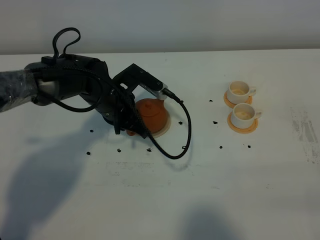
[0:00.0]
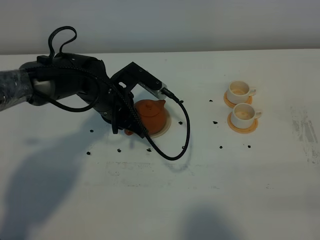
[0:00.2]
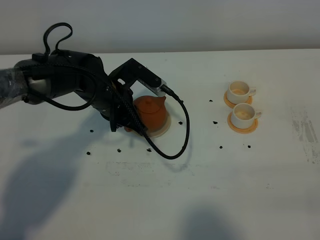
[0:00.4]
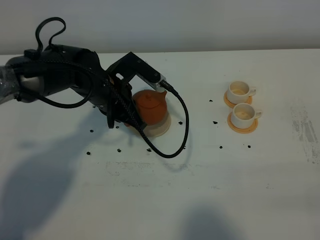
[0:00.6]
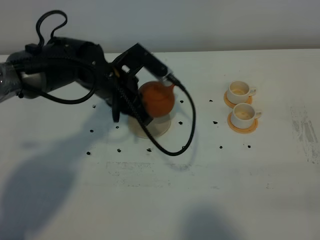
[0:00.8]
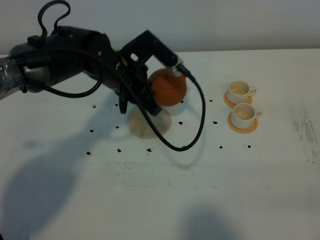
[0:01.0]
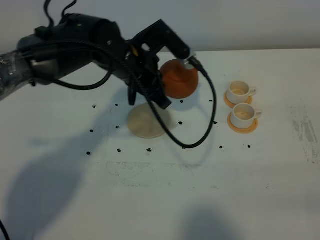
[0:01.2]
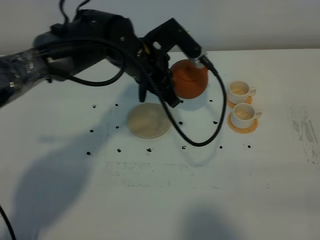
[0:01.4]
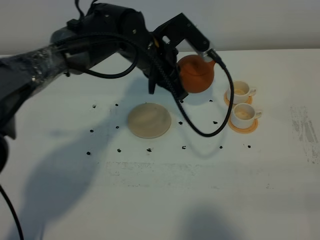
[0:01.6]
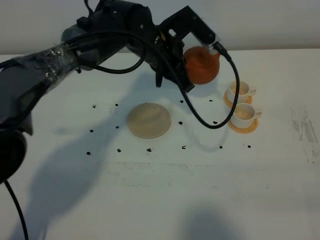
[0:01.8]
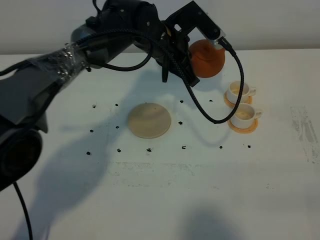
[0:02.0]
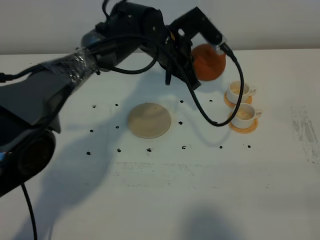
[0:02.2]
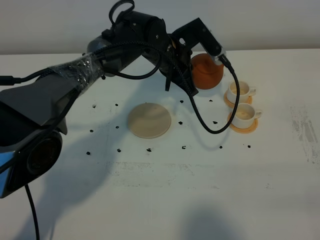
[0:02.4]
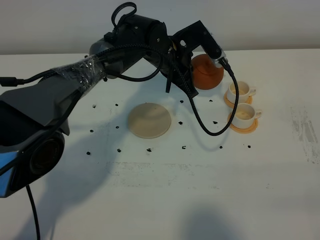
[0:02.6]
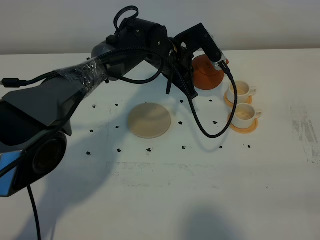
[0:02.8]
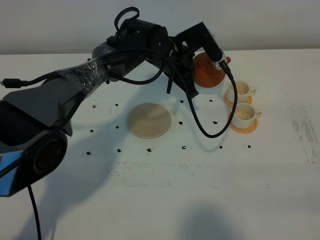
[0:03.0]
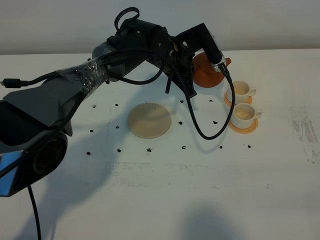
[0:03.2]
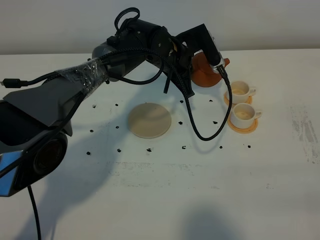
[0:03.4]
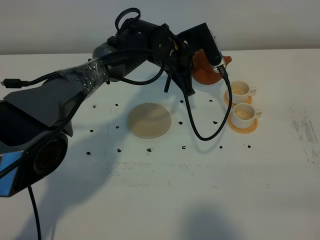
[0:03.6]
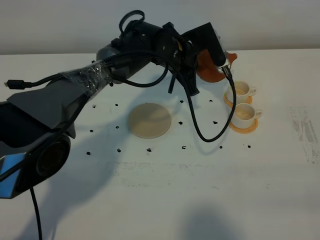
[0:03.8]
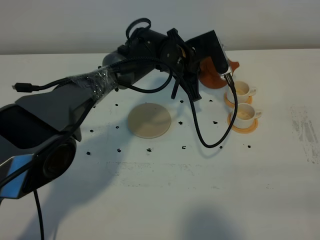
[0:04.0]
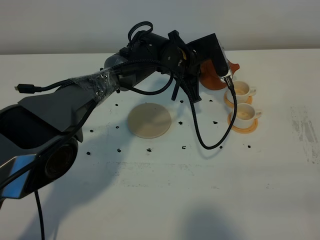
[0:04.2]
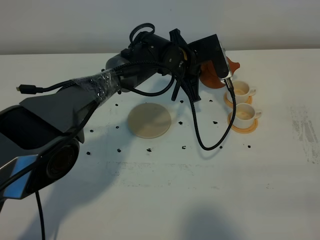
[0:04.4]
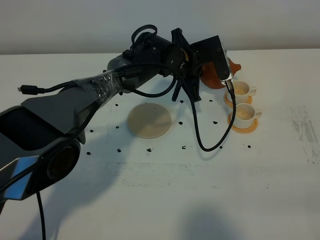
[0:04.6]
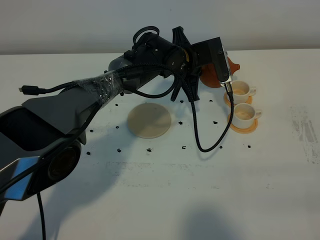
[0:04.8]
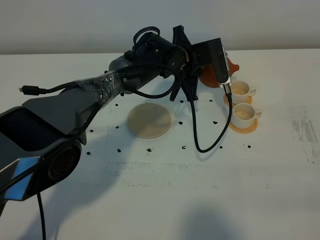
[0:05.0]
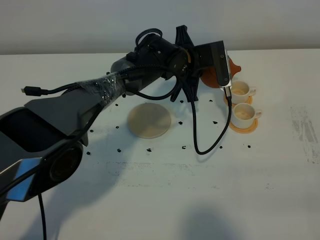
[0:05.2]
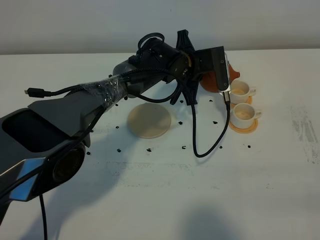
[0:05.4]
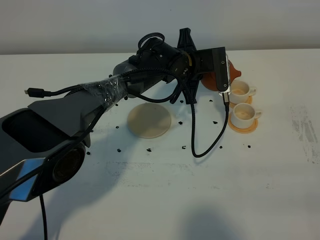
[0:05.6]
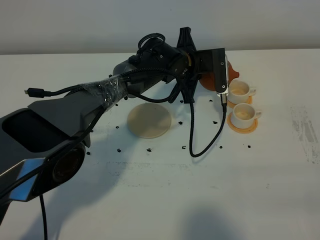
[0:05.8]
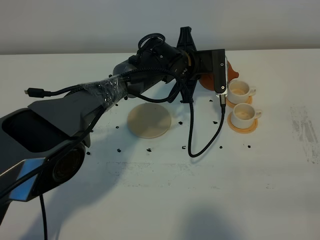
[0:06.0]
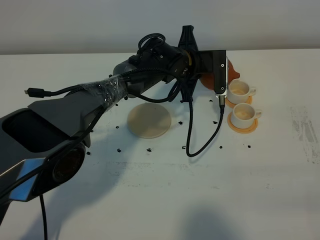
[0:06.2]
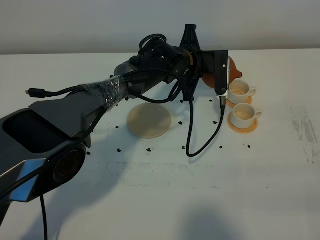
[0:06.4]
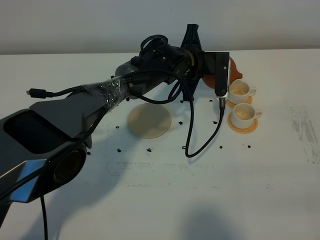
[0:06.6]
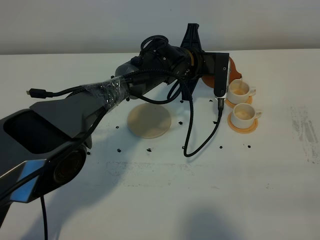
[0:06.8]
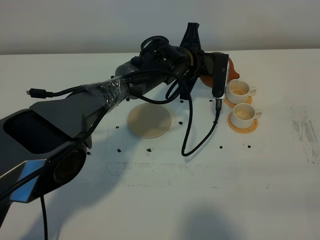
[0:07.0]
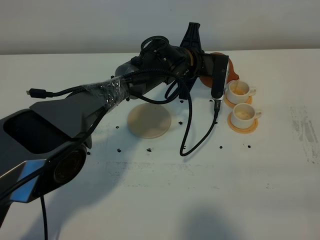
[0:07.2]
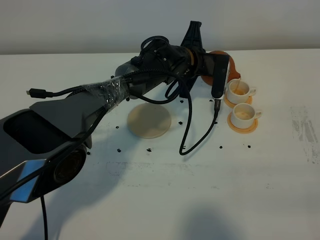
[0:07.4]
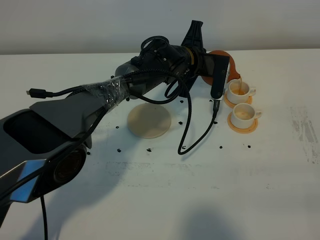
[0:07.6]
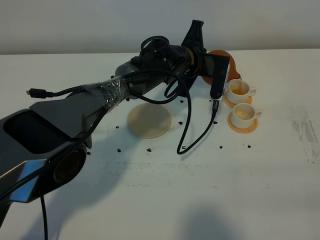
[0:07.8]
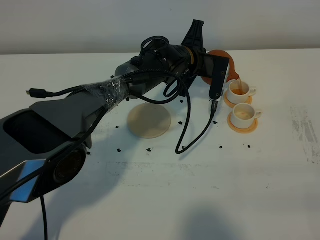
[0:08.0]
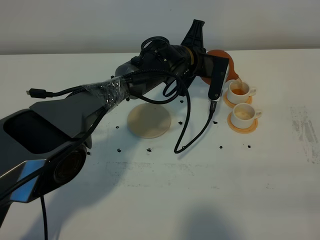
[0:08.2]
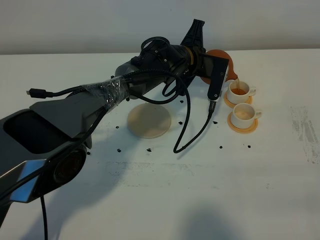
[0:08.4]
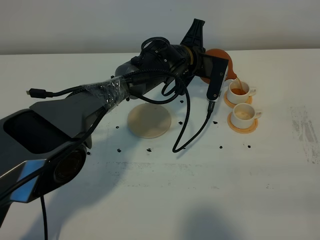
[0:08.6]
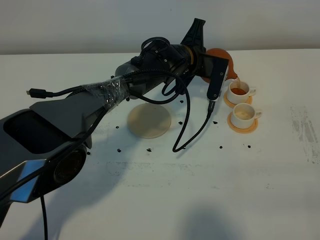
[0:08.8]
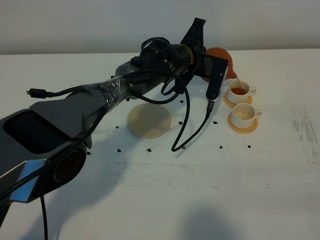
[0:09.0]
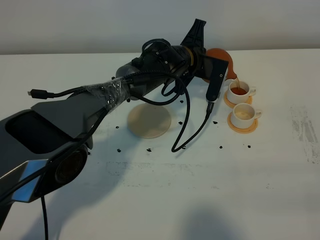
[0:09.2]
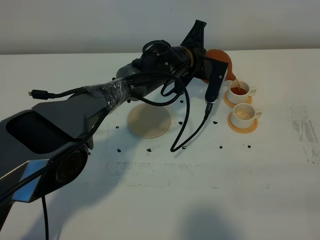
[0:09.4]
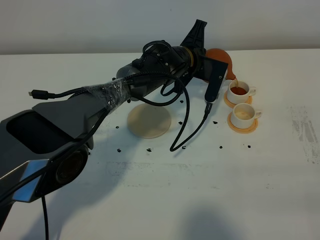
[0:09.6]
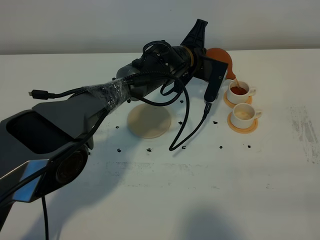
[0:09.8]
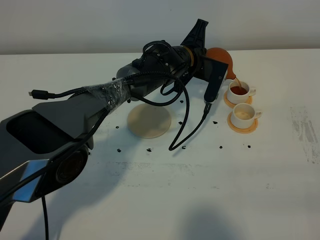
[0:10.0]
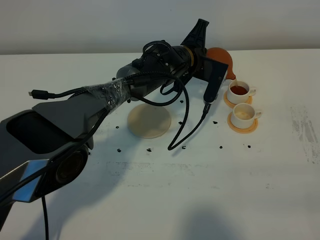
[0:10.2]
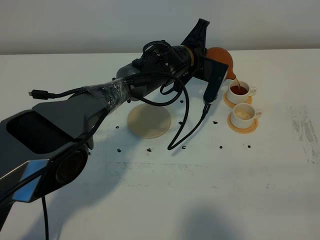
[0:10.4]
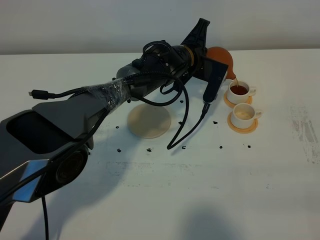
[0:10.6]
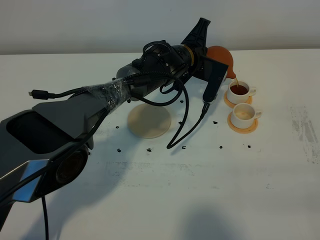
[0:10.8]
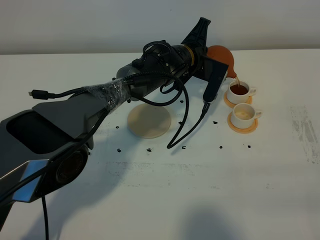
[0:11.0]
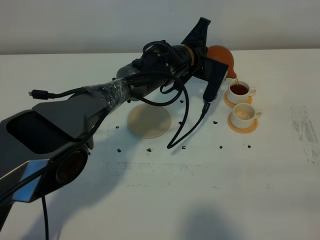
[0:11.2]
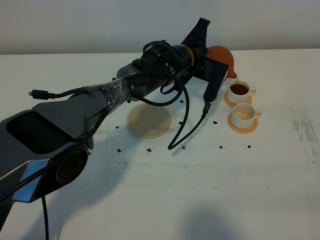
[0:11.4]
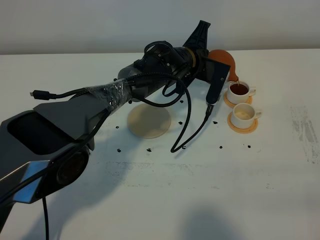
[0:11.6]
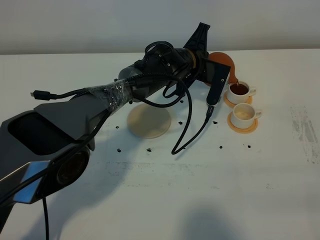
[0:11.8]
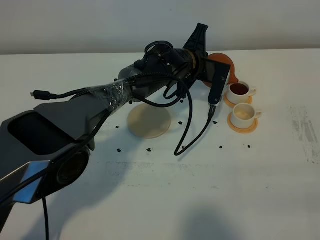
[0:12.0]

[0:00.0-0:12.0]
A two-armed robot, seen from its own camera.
Task of the whole recording: grasp the brown teapot and pour the tea into the two white teacups one by one, put the brown teapot back in its original place.
0:00.0 to 0:01.6: The left gripper moves upward and to the right, some 10 cm.
0:01.6 to 0:03.0: The left gripper is displaced downward and forward by about 5 cm.
0:03.0 to 0:04.4: There are only small adjustments of the grippers.
0:04.4 to 0:06.0: There are only small adjustments of the grippers.
0:06.0 to 0:07.6: There are only small adjustments of the grippers.
0:07.6 to 0:12.0: There are only small adjustments of the grippers.

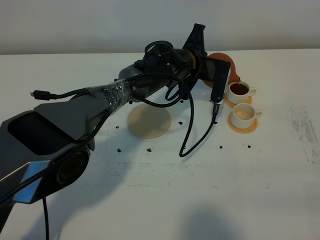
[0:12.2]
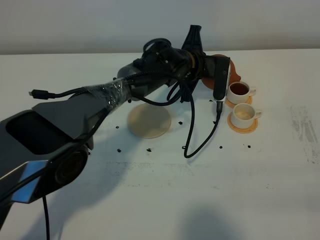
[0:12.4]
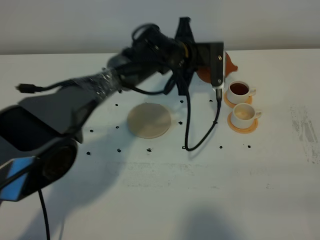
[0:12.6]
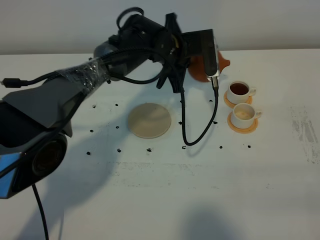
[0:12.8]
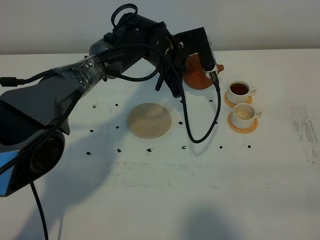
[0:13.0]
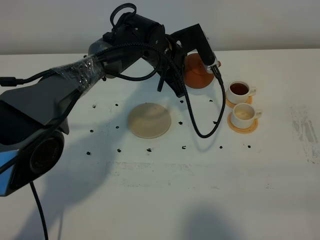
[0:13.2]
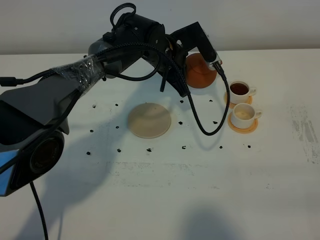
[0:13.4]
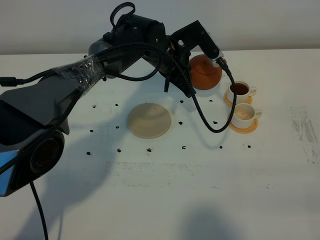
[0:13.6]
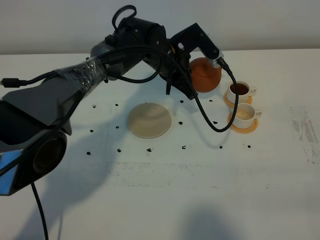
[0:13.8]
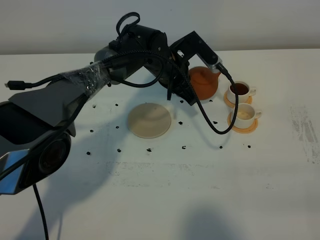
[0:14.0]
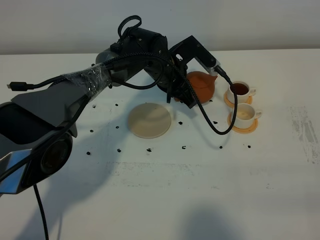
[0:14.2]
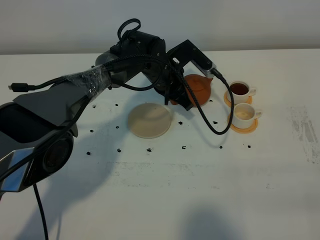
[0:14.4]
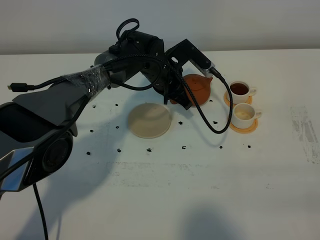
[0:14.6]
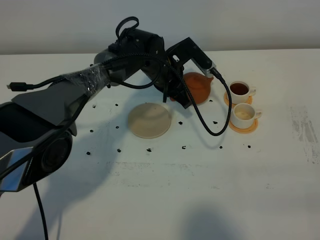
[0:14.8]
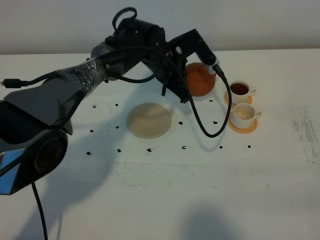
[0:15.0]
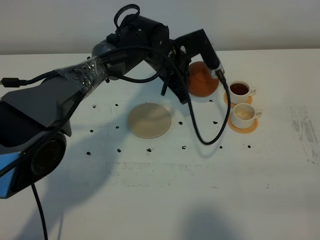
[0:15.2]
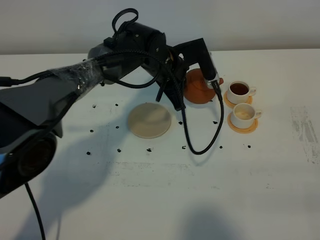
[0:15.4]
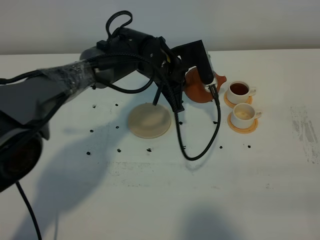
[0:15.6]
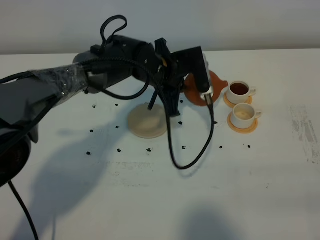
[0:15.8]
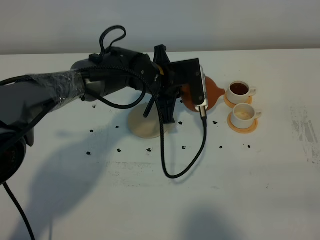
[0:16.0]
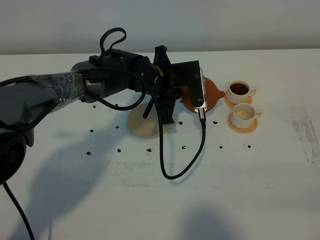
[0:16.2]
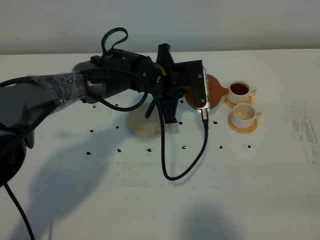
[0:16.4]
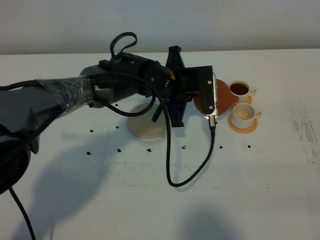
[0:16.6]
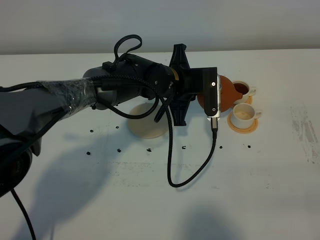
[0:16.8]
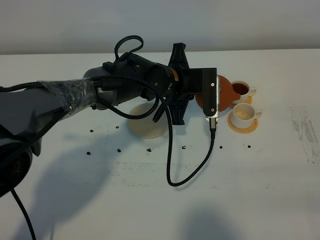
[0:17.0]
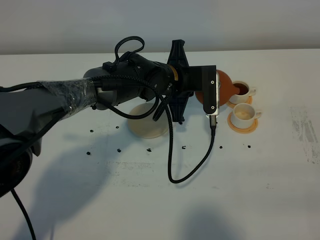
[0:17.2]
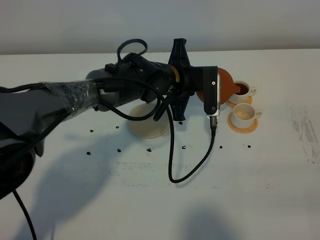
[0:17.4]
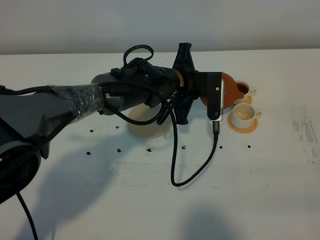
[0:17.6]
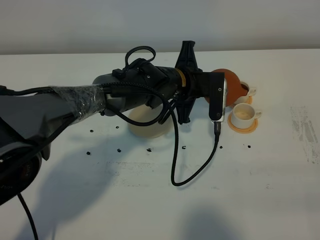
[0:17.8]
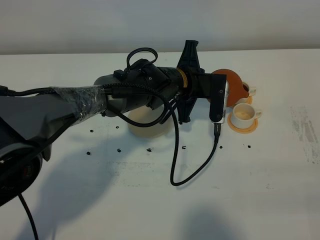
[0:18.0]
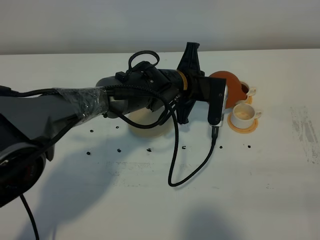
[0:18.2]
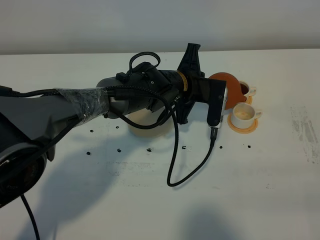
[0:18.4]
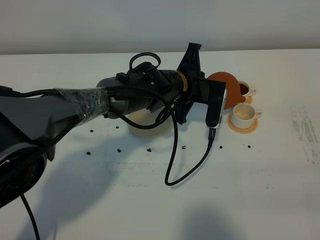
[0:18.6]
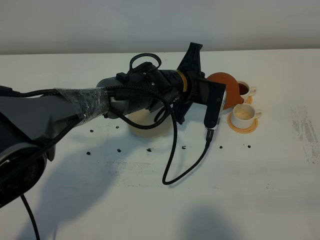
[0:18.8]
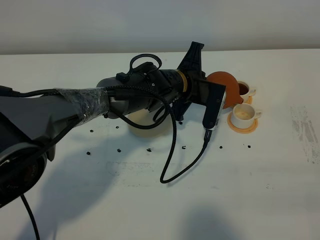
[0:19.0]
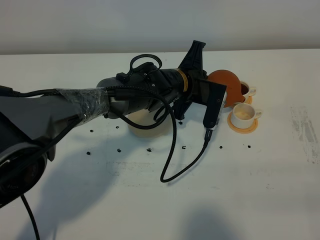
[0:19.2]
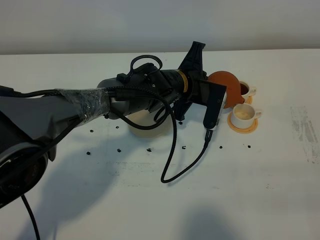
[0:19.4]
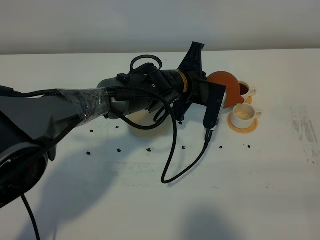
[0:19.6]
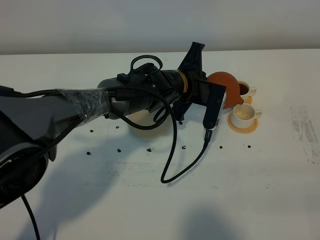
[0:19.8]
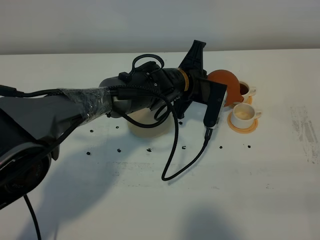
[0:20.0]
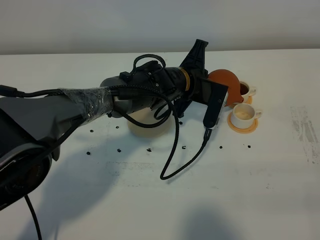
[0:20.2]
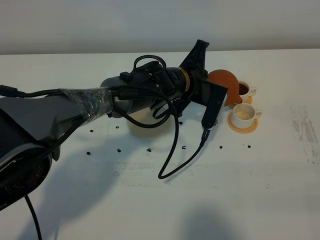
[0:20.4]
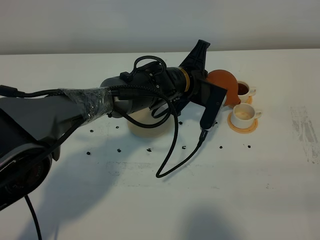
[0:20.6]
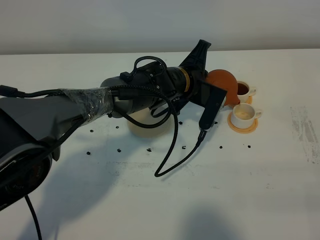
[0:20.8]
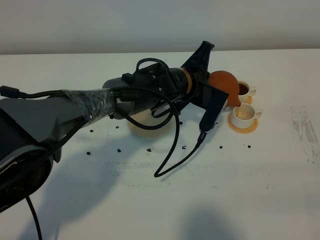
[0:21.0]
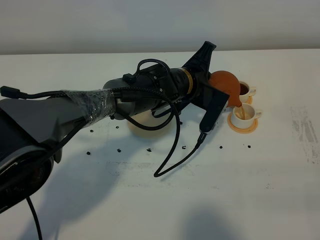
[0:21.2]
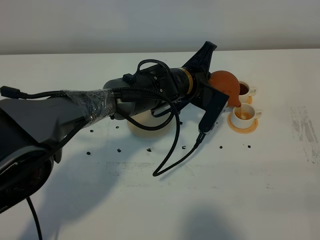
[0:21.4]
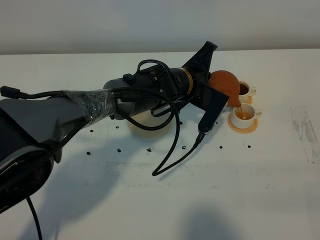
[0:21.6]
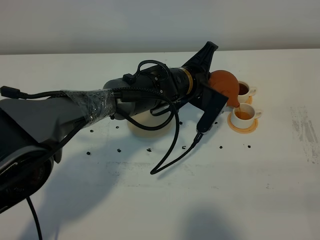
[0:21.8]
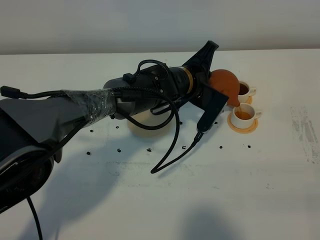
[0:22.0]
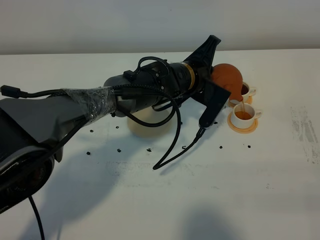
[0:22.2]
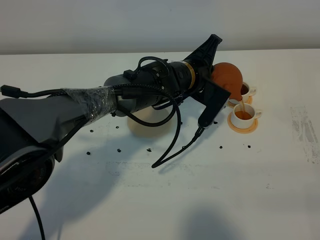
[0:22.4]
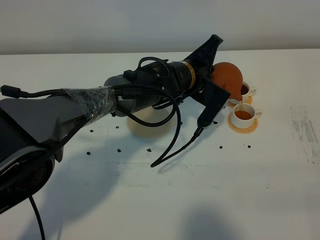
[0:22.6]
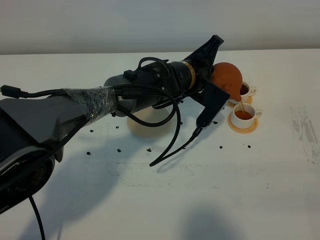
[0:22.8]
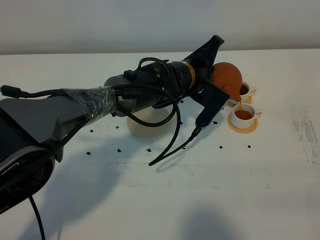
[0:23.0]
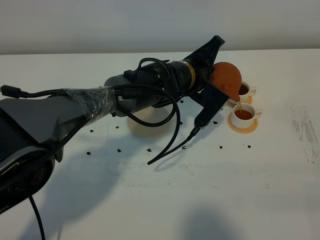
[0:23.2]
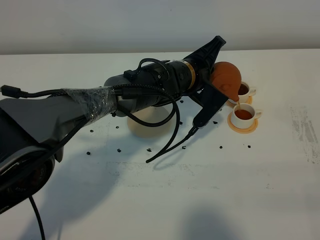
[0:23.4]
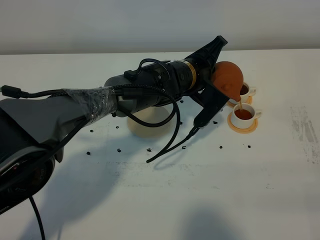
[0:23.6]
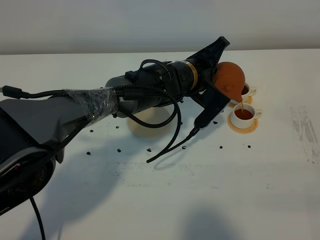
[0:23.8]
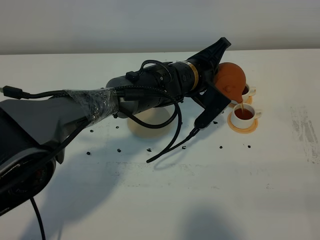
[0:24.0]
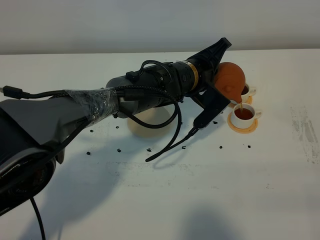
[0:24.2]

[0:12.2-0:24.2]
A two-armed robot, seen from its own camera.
Task of the whole recording: grasp the brown teapot and pour the tea into the two white teacups one by one, put the brown teapot back in its original place.
0:13.8 to 0:15.2: The grippers make only small movements.
0:15.2 to 0:16.6: The left gripper is displaced backward by about 5 cm.
0:16.6 to 0:18.2: There are only small adjustments of the grippers.
0:18.2 to 0:19.8: The grippers make only small movements.
0:19.8 to 0:21.2: The grippers move only a little.
0:21.2 to 0:24.2: The grippers stay close to where they were, moving slightly.
